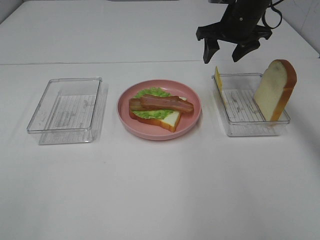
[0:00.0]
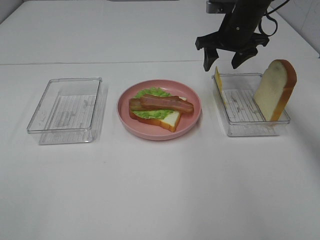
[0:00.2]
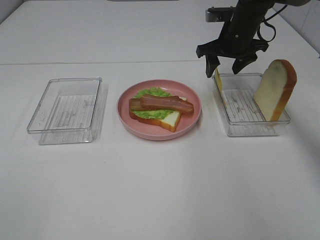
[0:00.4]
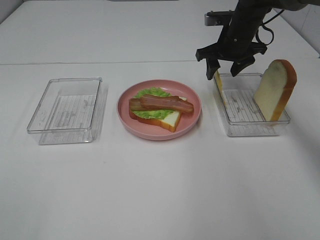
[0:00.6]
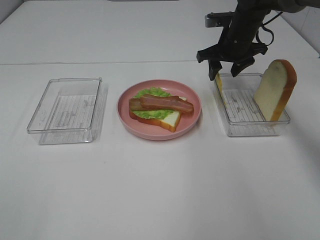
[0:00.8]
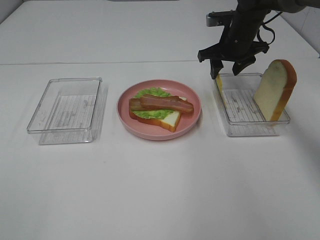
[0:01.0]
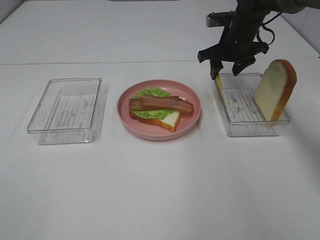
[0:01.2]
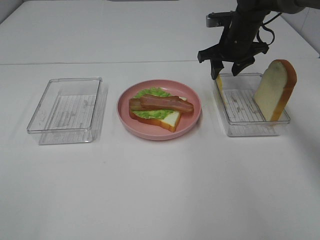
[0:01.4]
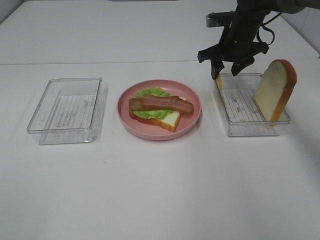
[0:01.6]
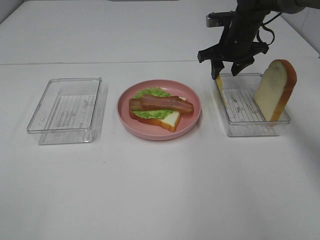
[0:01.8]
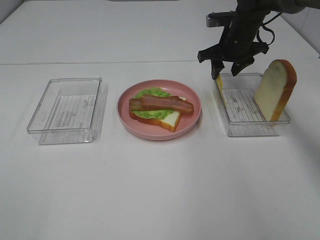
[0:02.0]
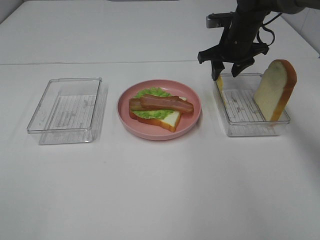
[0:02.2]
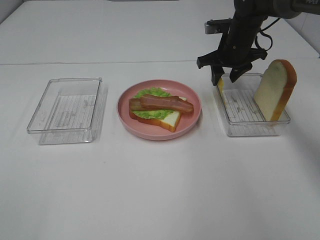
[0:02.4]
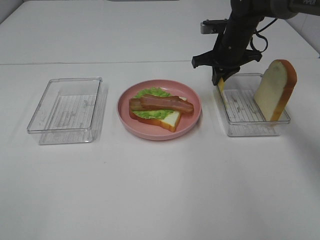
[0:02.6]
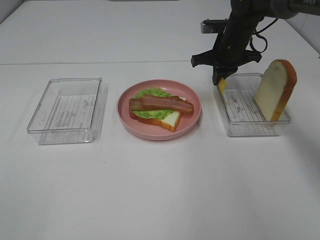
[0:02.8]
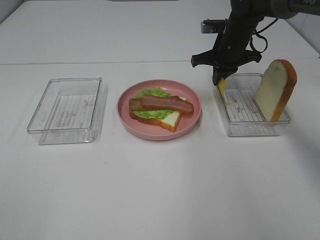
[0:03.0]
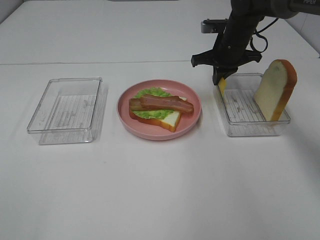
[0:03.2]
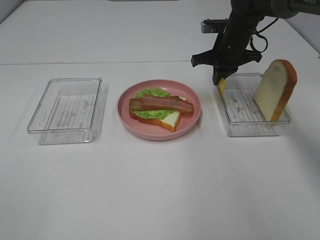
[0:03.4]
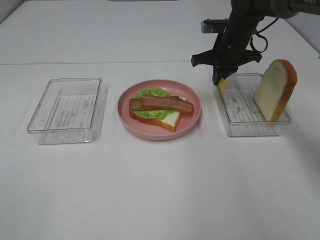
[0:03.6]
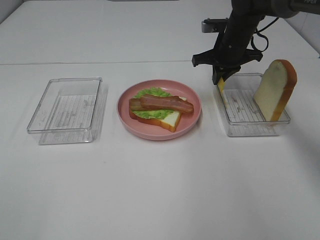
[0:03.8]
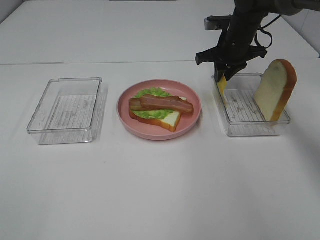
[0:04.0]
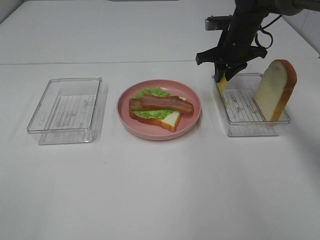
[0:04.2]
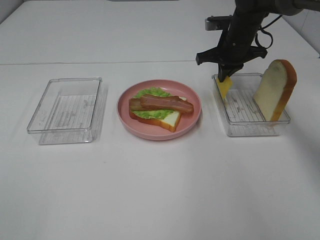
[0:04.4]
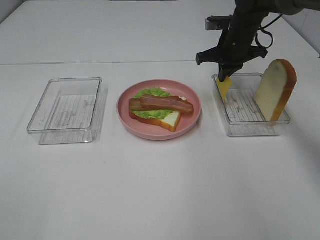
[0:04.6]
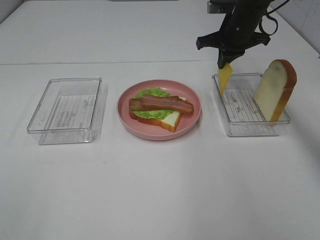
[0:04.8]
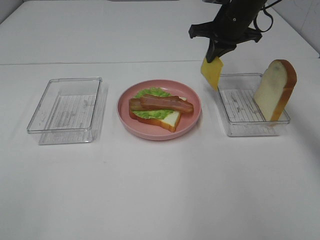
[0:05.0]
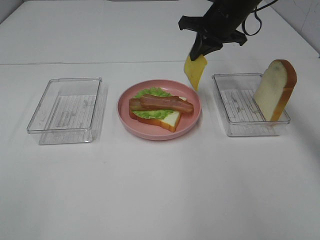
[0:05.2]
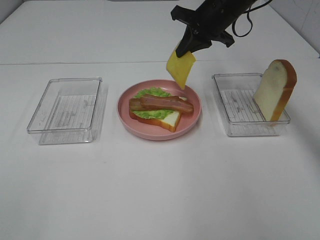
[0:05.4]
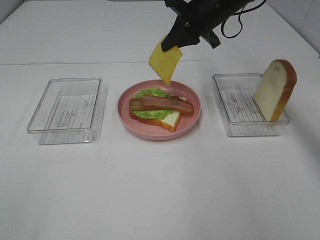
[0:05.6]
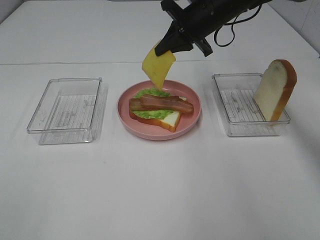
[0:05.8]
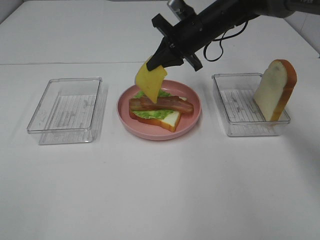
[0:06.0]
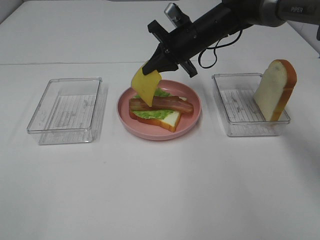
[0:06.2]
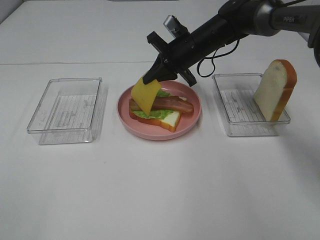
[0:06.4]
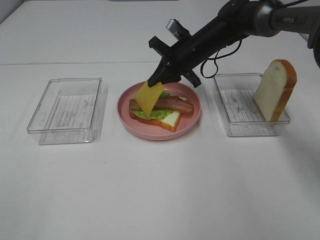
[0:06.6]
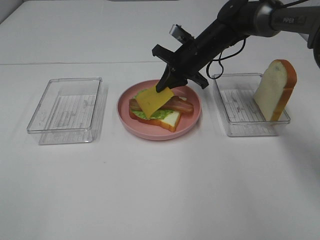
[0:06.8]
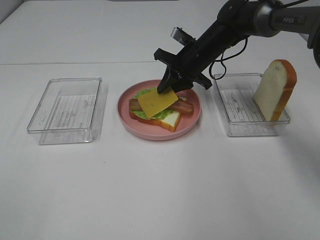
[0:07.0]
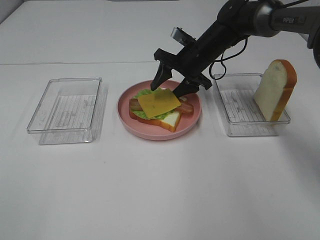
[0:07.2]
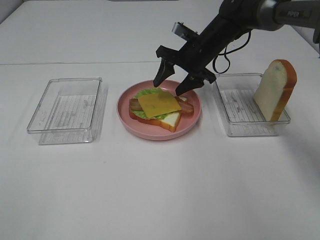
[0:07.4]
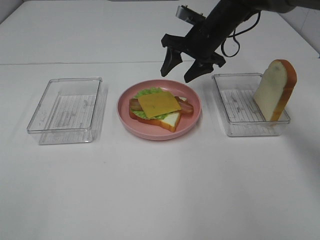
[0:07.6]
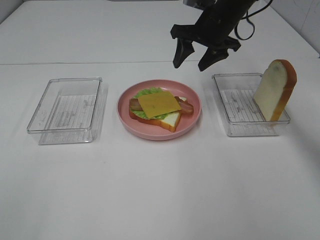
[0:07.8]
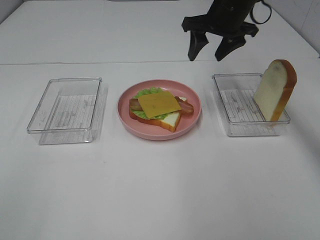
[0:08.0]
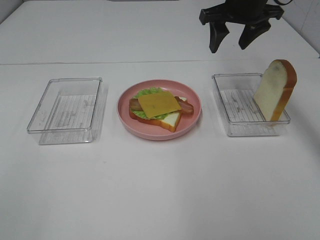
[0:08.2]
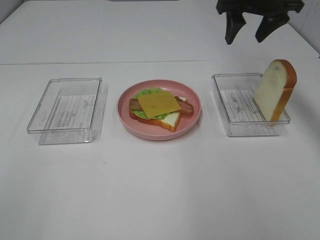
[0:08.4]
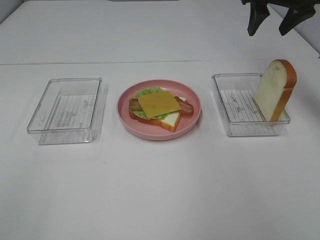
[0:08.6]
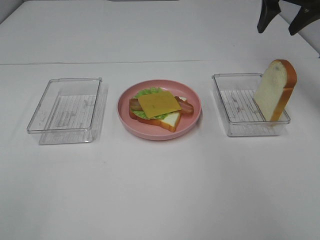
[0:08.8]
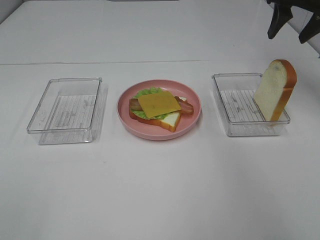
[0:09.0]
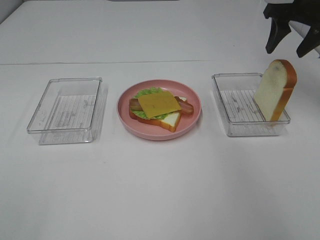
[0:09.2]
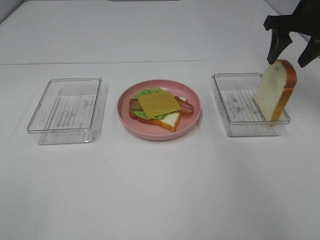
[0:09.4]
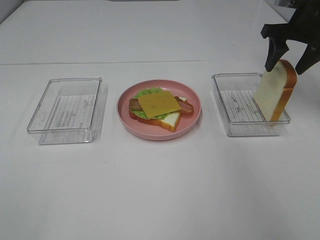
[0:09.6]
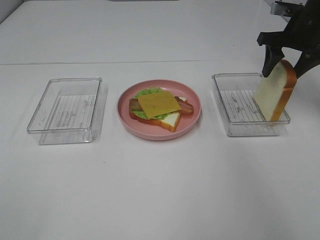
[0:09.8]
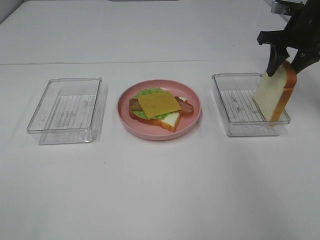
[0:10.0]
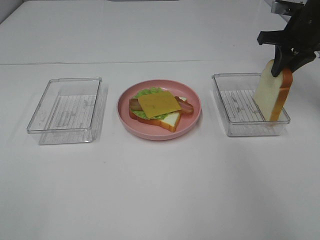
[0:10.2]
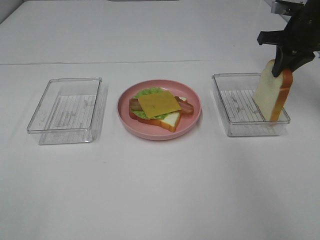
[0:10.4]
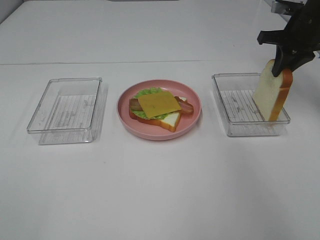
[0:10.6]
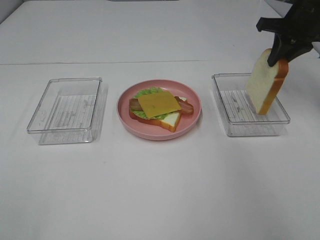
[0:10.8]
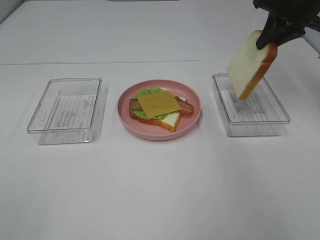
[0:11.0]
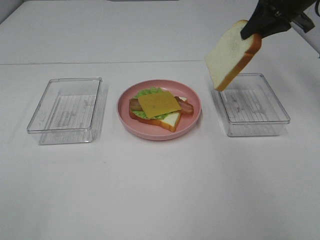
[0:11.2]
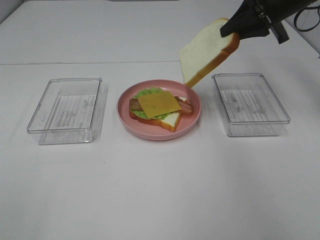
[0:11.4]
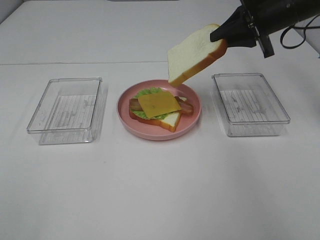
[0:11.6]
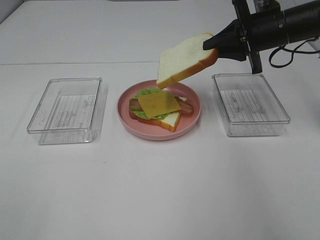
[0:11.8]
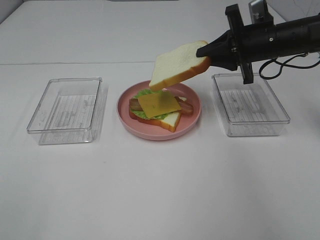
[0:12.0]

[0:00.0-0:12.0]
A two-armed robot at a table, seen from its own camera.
Task of the whole recording: Make sandwiches.
Step, 0.0 to 4.6 s: Right hand:grab the cheese slice.
Step, 4.8 to 7.4 s: Right hand:place the cheese slice on top of the bacon.
Step, 7.6 to 10.0 s: Right hand:grab the bread slice.
0.0 to 1.6 s: The right gripper changes place by approximately 5 cm.
1.6 to 3.0 s: The right gripper closes.
3.0 to 4.4 s: Both grippers stay about where they are.
4.4 to 6.0 s: The right gripper heads to the left, covering approximately 10 cm.
6.0 to 7.6 s: The right gripper opens.
7.6 to 9.0 s: The right gripper moves to the right and upward, some 20 cm.
9.0 to 10.4 s: The right gripper moves downward, some 5 cm, and closes its fingers.
10.4 to 12.0 s: The right gripper travels to the left by about 10 cm.

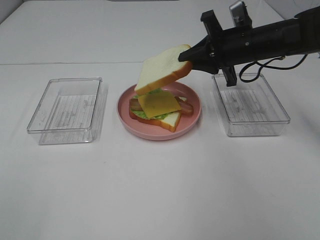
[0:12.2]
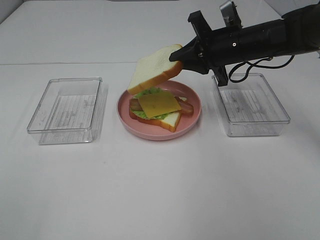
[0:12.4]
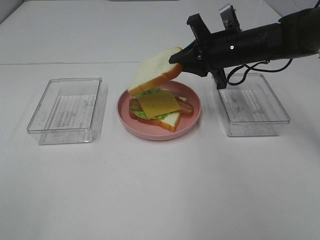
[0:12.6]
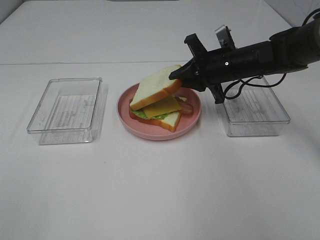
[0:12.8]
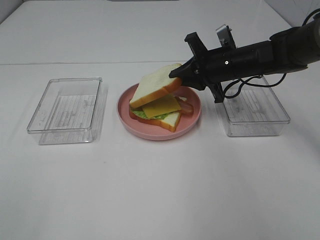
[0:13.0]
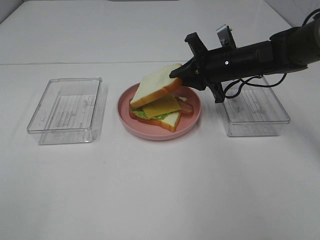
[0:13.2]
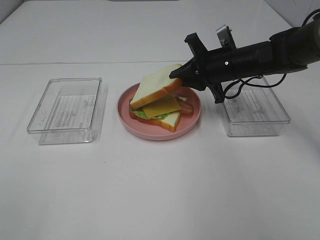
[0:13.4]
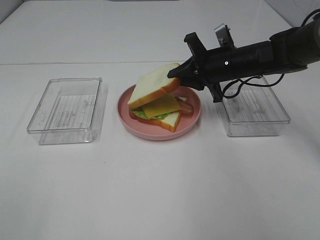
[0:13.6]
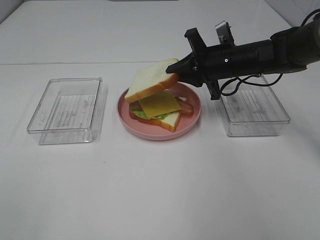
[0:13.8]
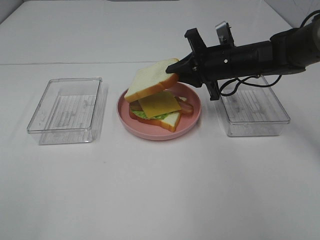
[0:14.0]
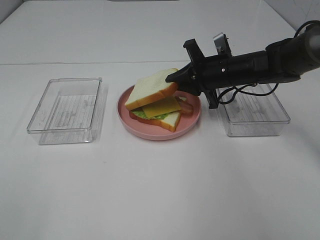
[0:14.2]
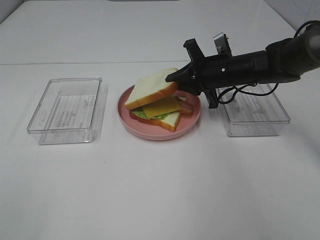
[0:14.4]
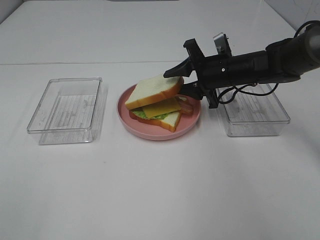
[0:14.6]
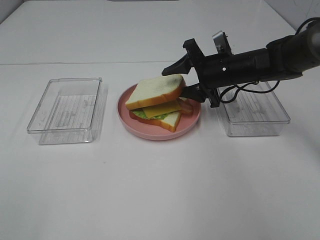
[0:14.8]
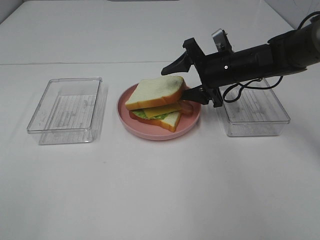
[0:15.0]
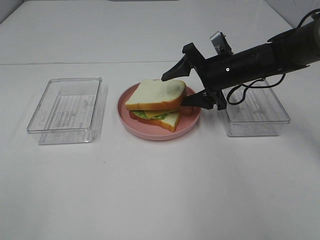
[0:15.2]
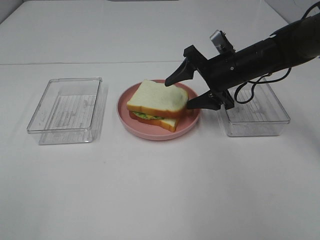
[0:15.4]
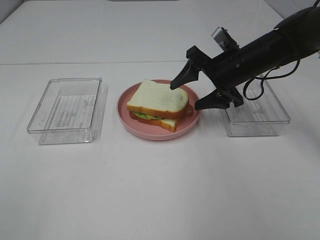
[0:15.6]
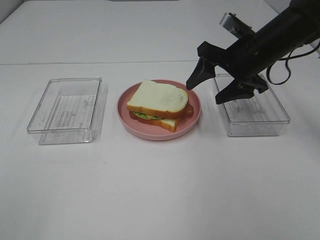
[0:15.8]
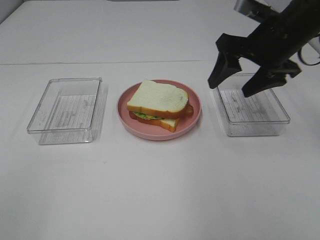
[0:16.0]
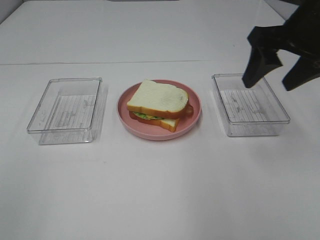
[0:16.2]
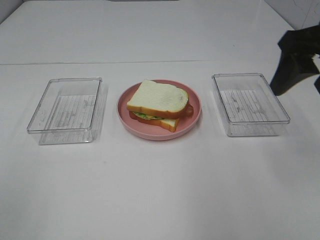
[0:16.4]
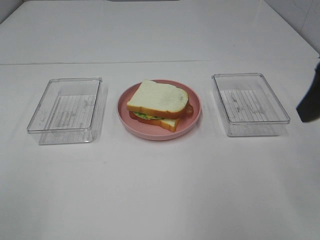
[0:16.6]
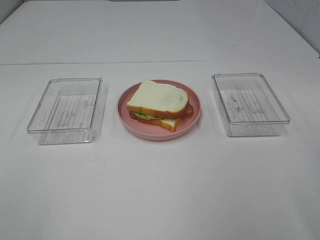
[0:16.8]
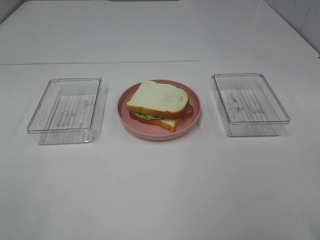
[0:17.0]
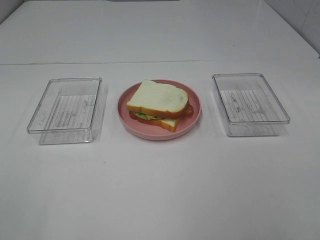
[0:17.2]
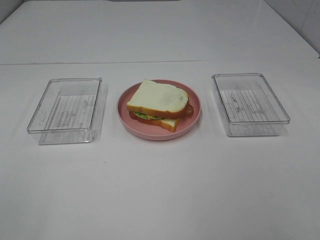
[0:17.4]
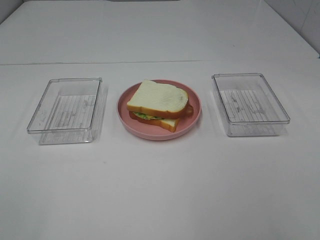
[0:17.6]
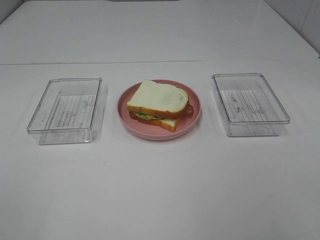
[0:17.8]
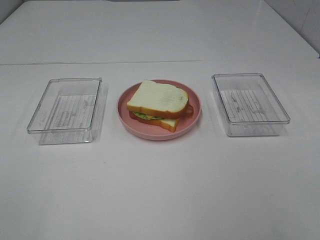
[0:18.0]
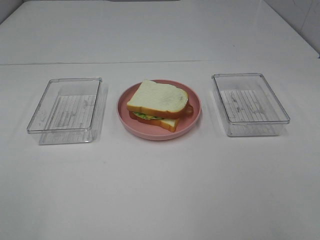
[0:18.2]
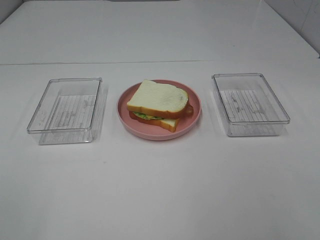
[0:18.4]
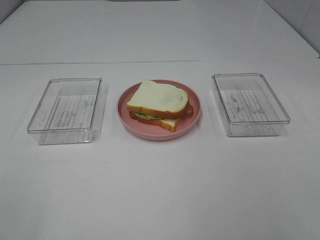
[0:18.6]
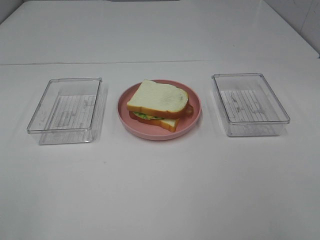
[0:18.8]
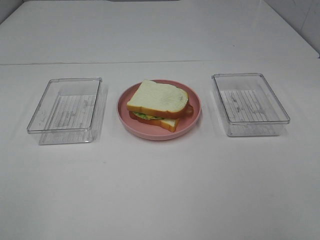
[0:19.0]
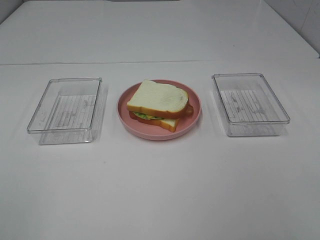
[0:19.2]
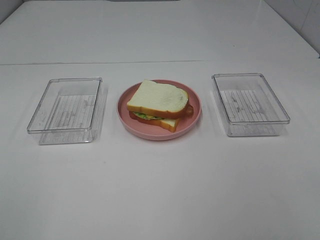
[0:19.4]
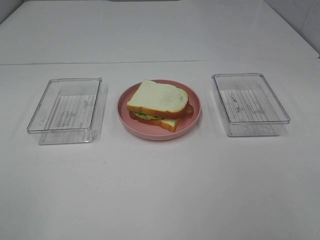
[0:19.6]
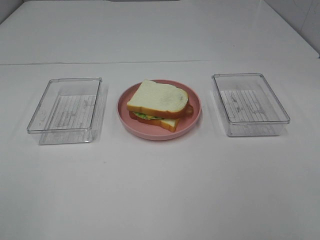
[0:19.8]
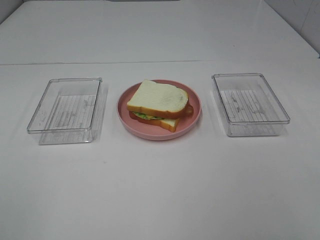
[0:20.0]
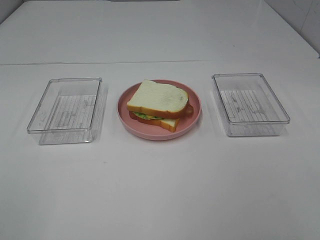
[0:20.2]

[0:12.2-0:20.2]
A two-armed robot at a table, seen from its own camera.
Task of the whole recording: Make sandwiches.
Step, 12.2 to 15.4 s: Right hand:place the bread slice on the cheese slice.
12.2 to 13.8 s: The grippers move only a little.
13.8 to 15.4 s: The right gripper opens its fingers.
15.4 to 17.0 s: The right gripper goes roughly 35 cm backward and upward.

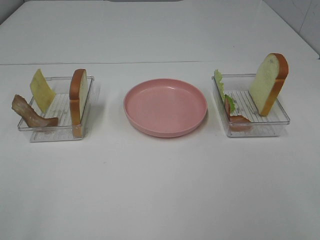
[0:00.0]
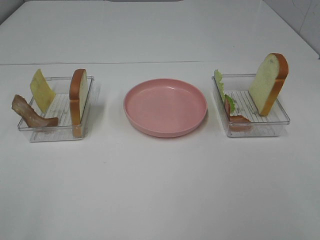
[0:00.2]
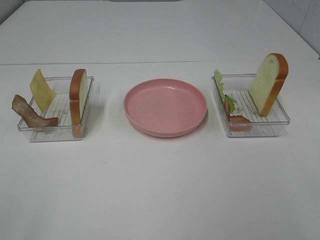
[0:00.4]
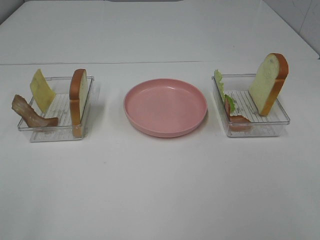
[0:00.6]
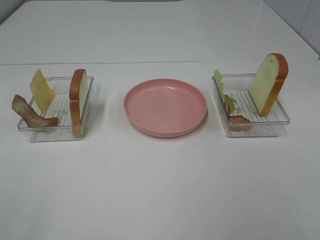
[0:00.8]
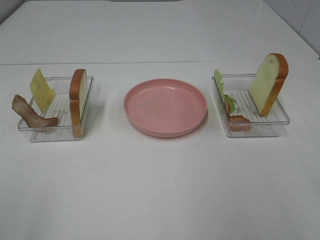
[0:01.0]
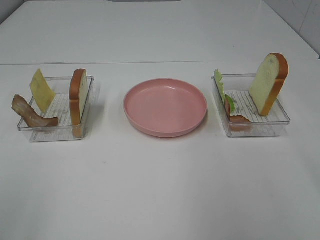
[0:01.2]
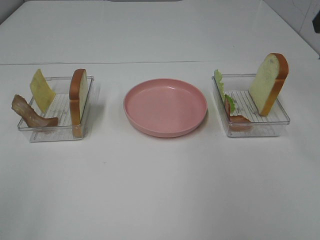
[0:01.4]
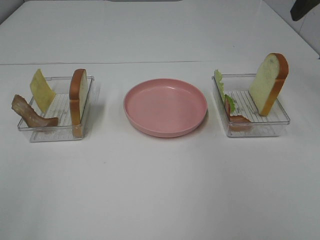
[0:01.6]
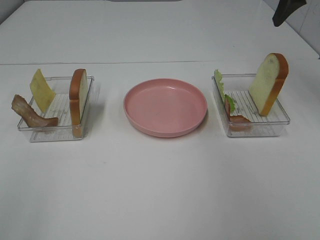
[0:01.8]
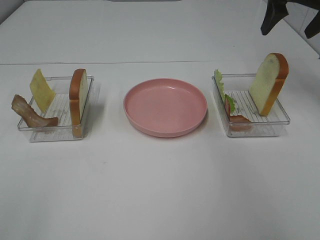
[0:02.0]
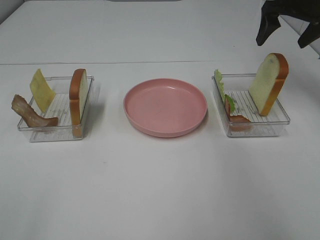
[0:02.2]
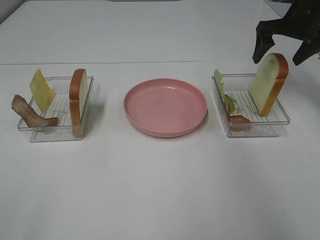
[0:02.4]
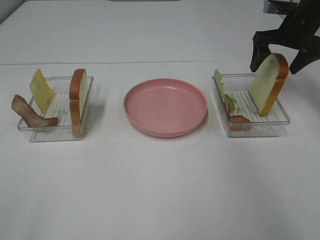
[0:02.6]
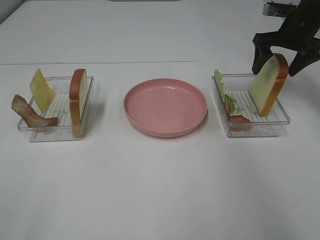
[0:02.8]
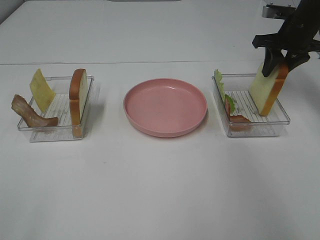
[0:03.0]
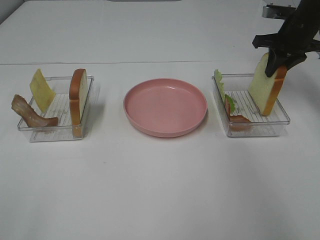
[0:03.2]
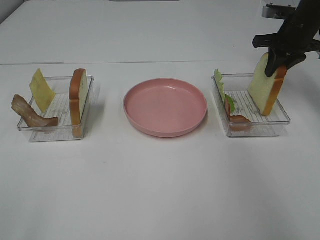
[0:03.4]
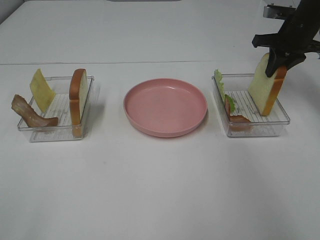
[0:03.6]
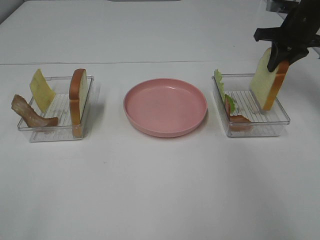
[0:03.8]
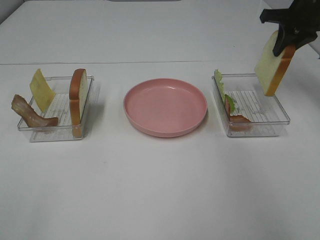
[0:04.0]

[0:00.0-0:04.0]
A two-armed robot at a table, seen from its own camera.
Task of the whole recording: Make sandwiches.
Step, 0.0 to 3.6 s: Right hand:grab the bread slice.
1.4 to 2.6 s: The right gripper shifts roughly 25 cm forward and downward.
2.6 to 4.0 s: The right gripper moves upward, approximately 5 cm, and closes.
